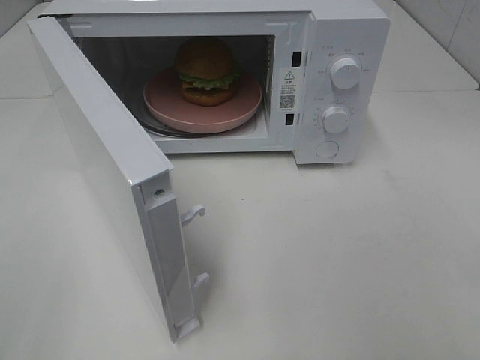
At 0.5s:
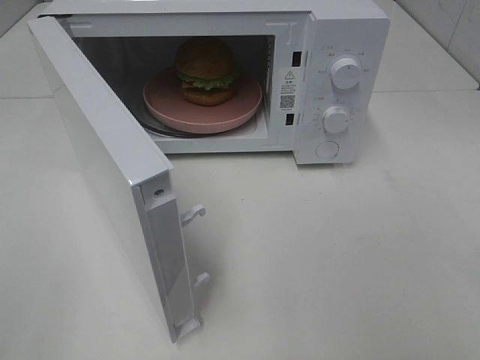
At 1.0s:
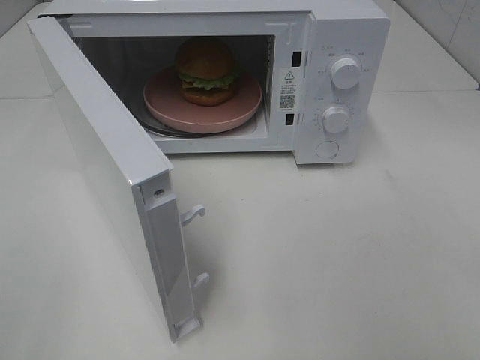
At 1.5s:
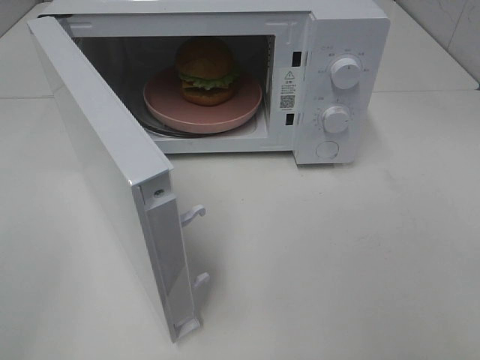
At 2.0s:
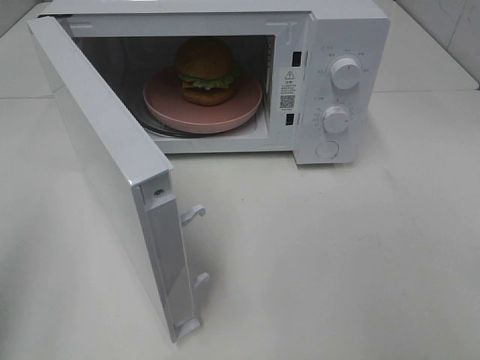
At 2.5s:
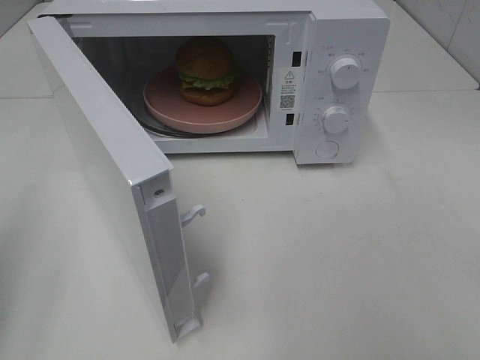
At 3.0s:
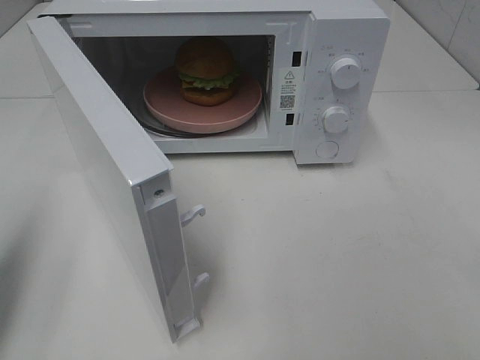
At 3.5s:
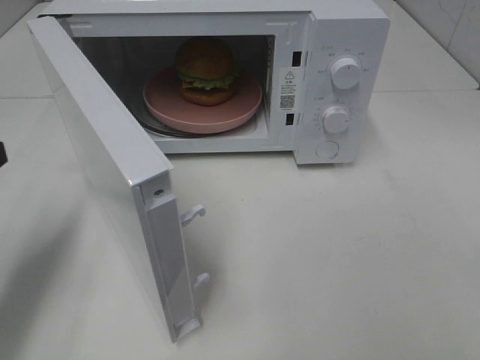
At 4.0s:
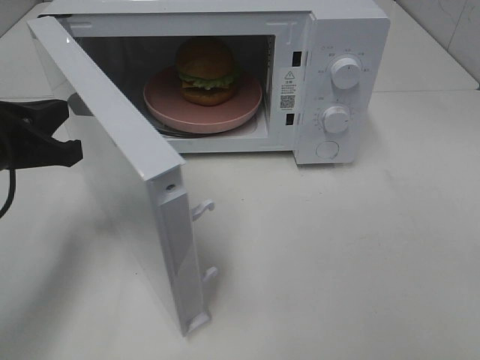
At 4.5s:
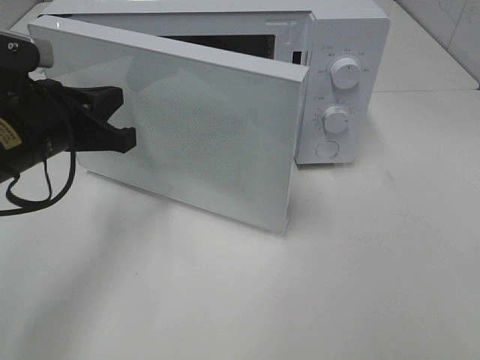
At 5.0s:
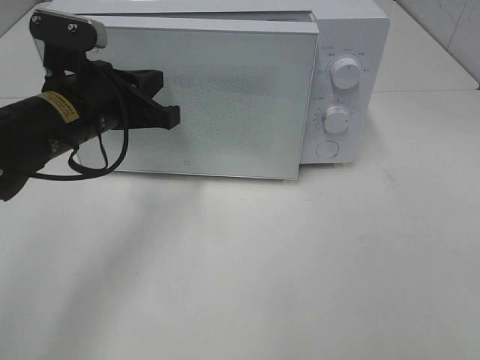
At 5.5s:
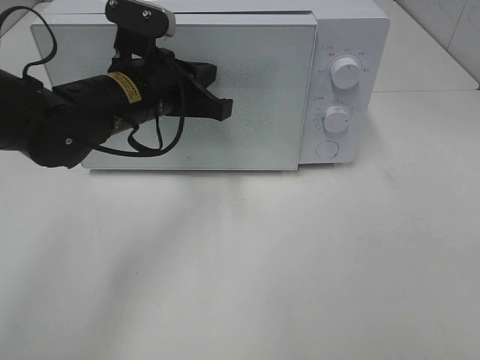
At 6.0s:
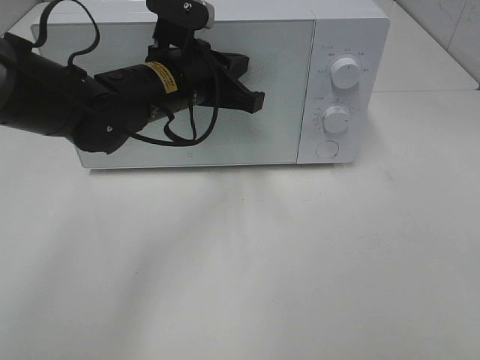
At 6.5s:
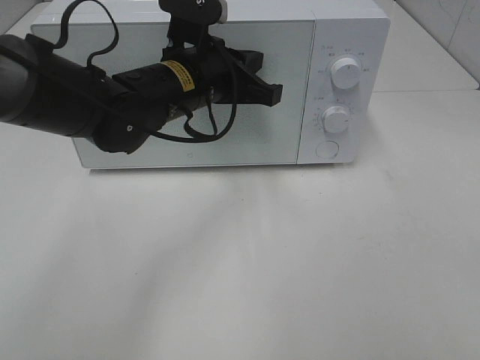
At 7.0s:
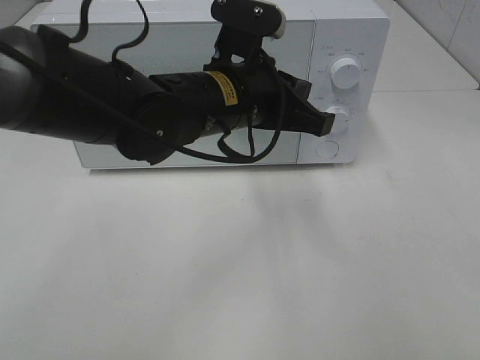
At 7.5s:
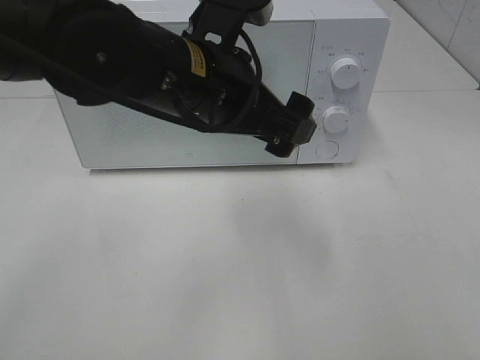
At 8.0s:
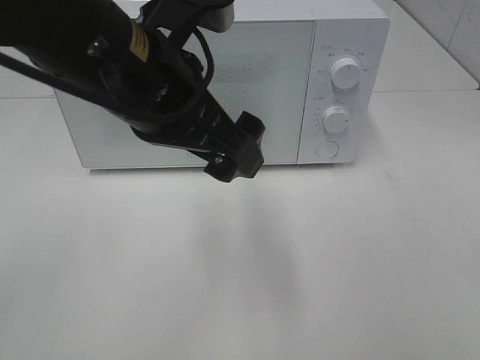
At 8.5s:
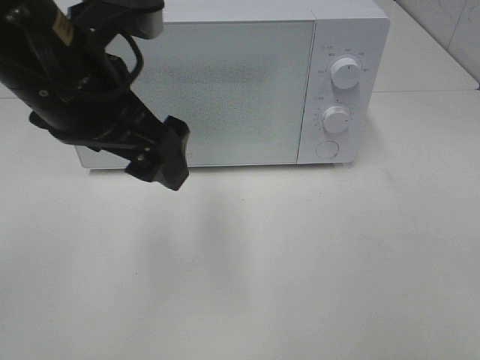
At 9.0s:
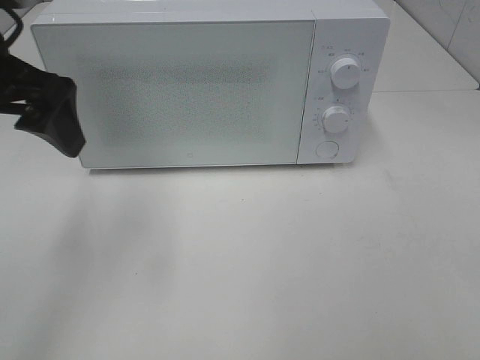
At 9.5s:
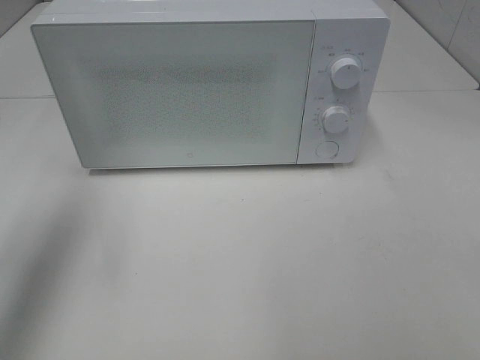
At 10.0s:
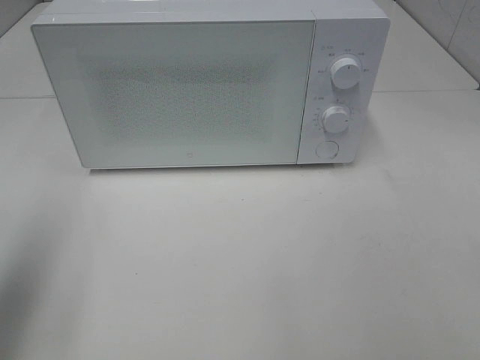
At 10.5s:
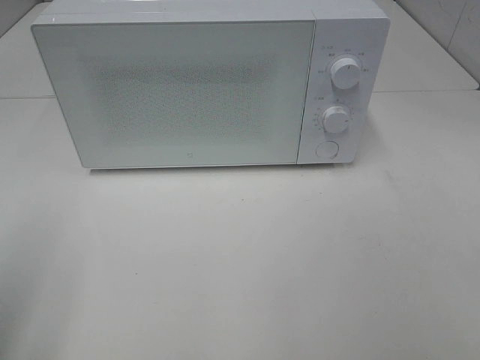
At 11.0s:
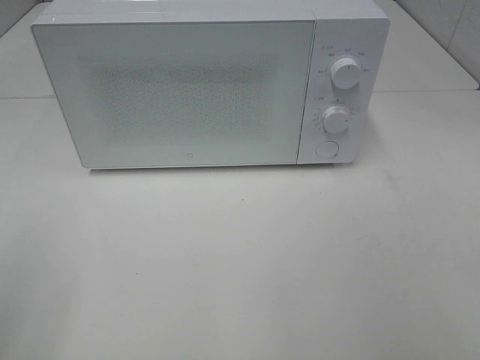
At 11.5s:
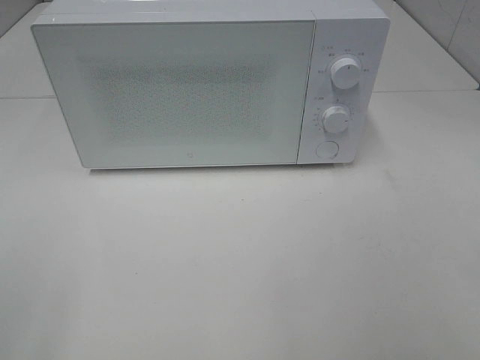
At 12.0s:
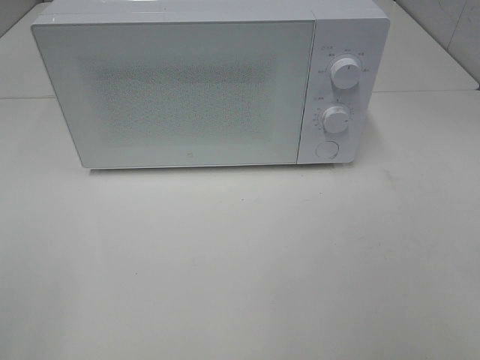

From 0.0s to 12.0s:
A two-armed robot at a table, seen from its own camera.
Task of the whole recording: Heat the burger.
Step, from 0.0s to 6.5s: Left hand: close the microwave door.
From 2.0s to 4.0s: The left gripper moves forward, downward and to the right, some 25 cm.
From 4.0s to 6.0s: The left gripper heads to the right and forward, covering roughly 20 cm.
From 6.0s to 8.0s: The left gripper travels backward and upward by roughly 15 cm, and opens its fingers.
From 8.0s to 10.0s: The left gripper heads to the left, covering some 25 cm.
From 10.0s to 12.0s: The left gripper goes about 15 cm backward.

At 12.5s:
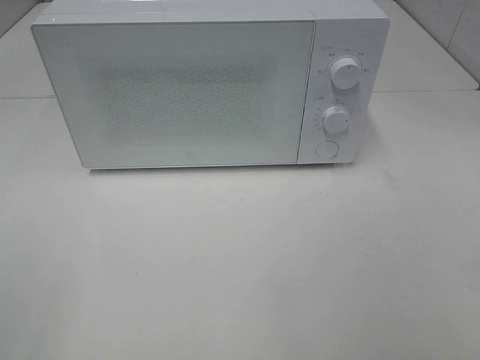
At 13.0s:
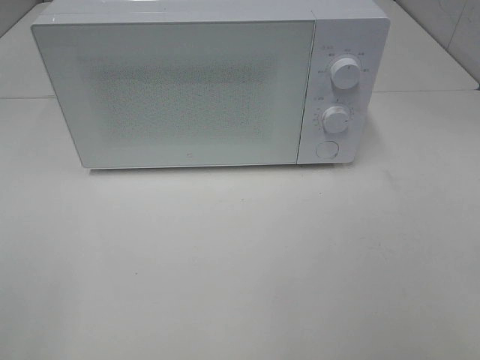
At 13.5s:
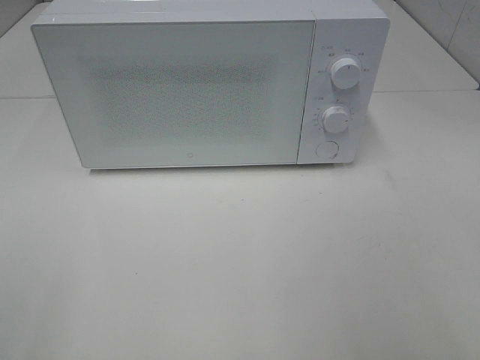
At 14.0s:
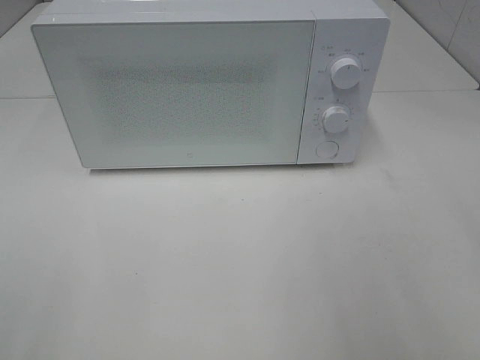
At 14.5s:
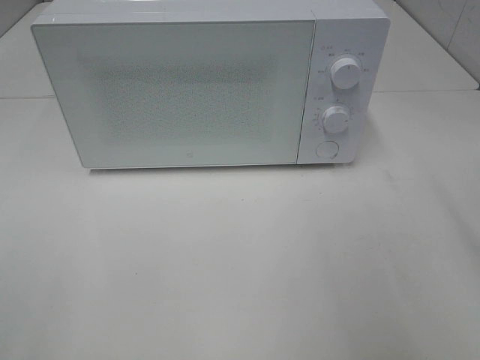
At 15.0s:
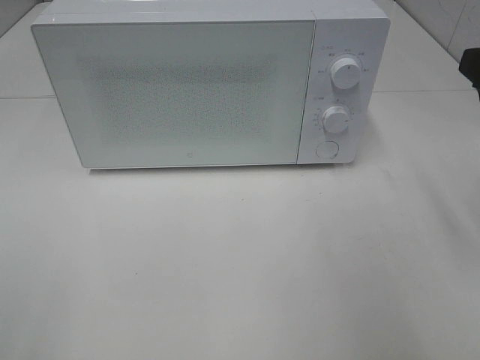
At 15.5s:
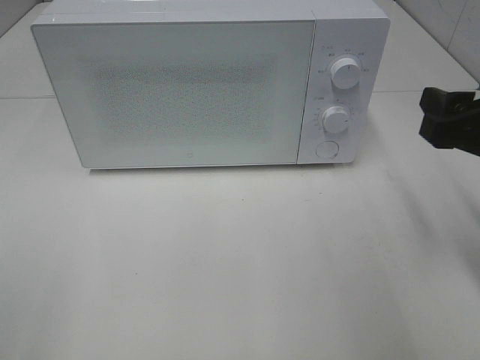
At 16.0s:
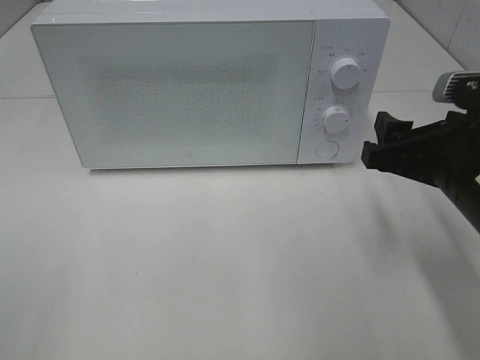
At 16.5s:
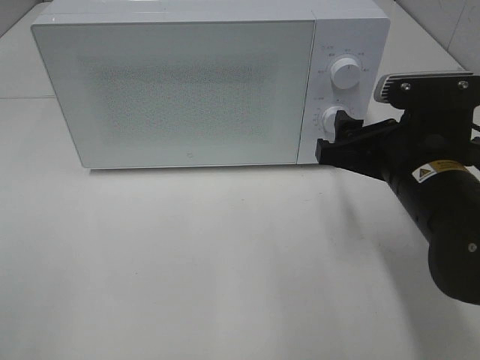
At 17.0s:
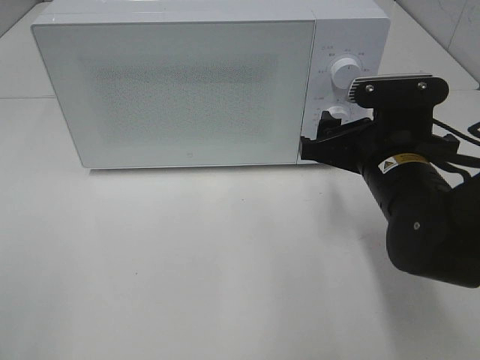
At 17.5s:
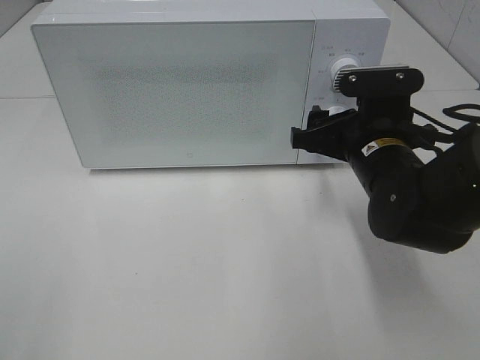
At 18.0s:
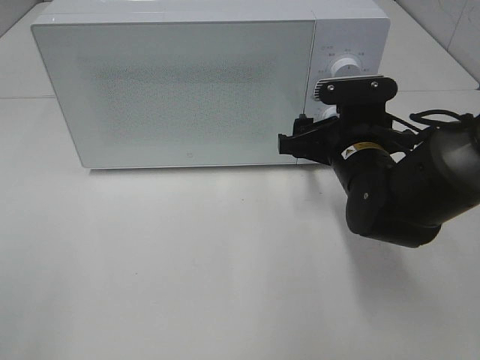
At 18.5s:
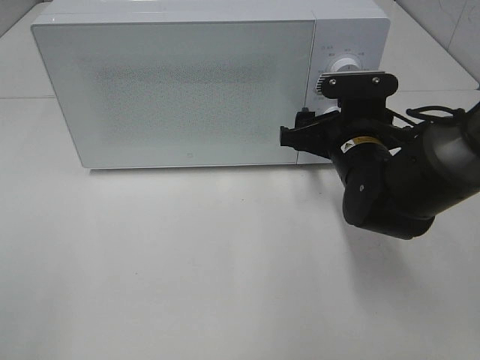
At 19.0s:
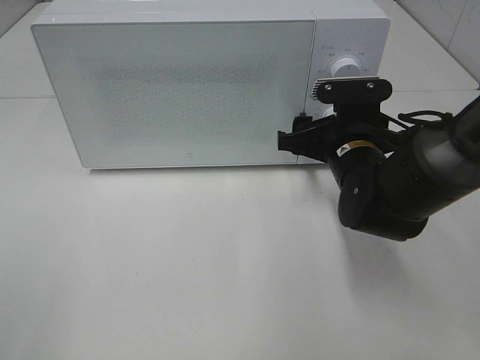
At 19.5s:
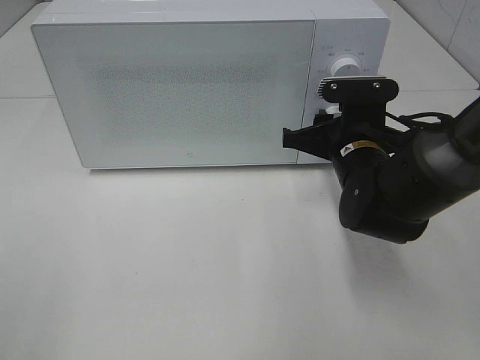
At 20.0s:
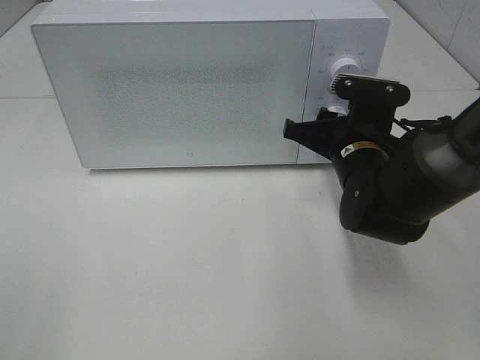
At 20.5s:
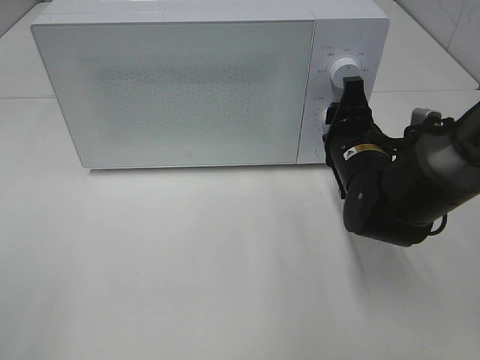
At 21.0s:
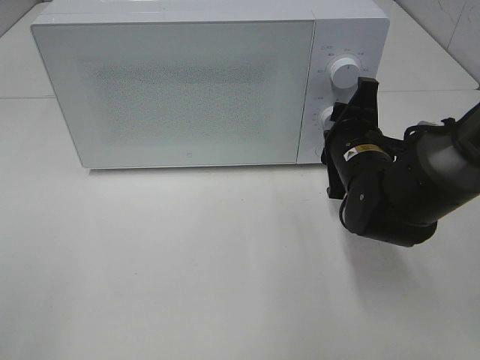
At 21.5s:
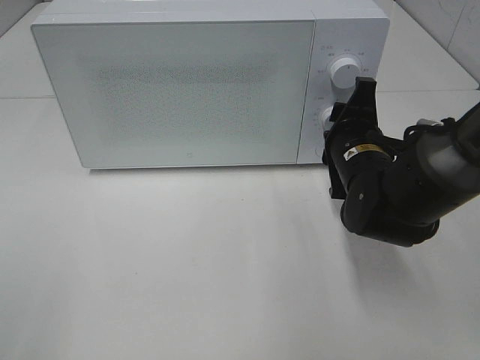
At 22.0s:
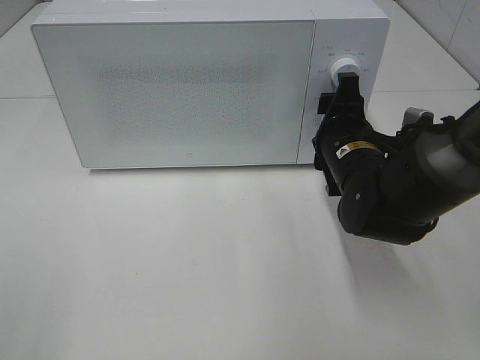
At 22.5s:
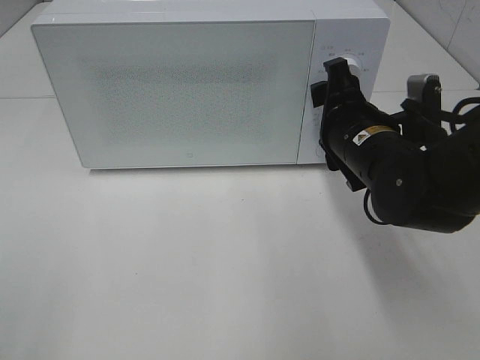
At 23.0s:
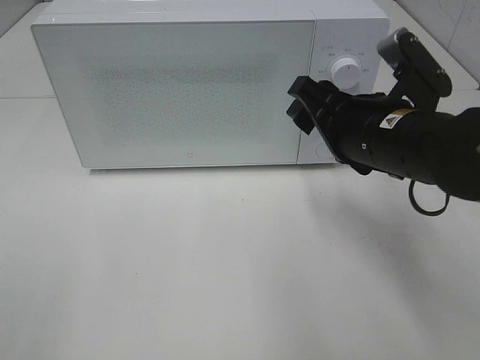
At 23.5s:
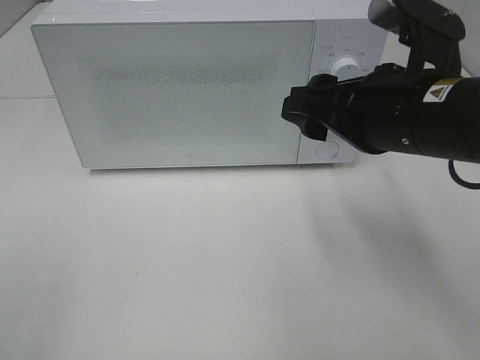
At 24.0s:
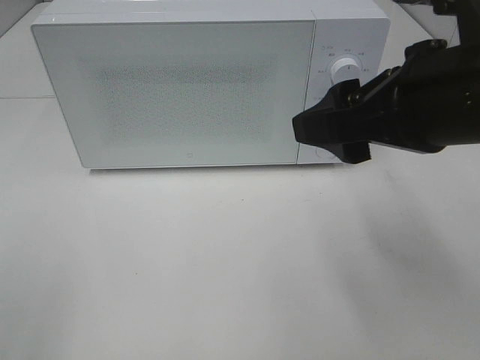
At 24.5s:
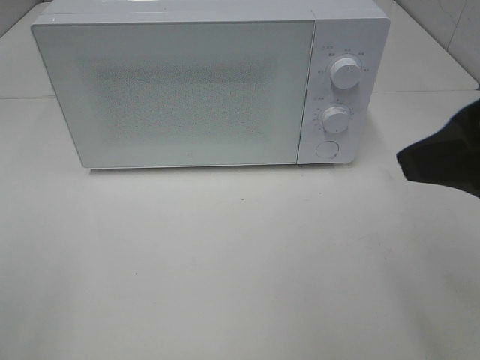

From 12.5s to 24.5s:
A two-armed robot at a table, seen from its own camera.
Task of the whole recording: Heat the burger.
Step, from 12.5s to 21.5s: Right hand: twist timer button.
From 14.5s to 16.5s: The right gripper heads downward, to the left and forward, covering roughly 20 cm.
From 16.5s to 18.5s: The right gripper moves forward, approximately 10 cm.
From 18.5s to 20.5s: The right gripper closes.
From 22.5s to 24.5s: The right gripper is displaced upward and backward by approximately 25 cm.

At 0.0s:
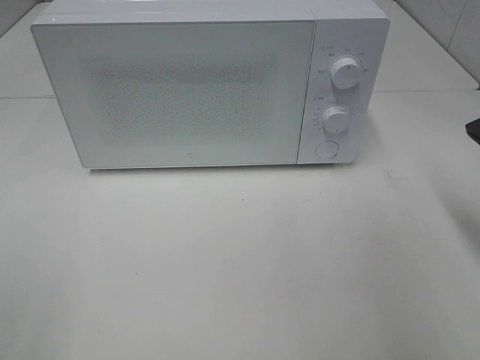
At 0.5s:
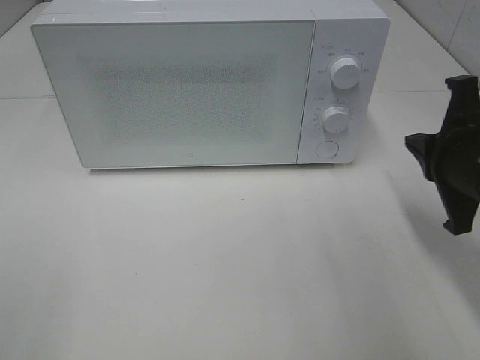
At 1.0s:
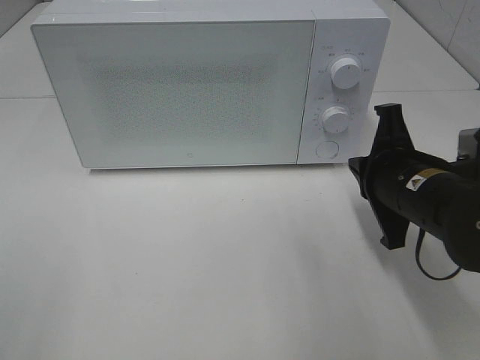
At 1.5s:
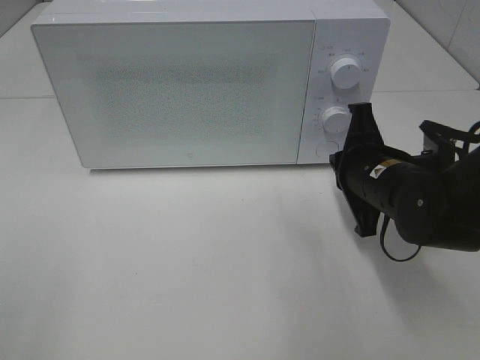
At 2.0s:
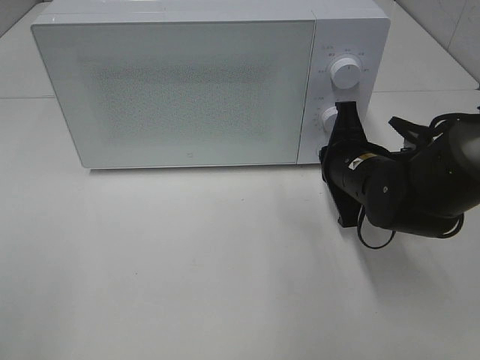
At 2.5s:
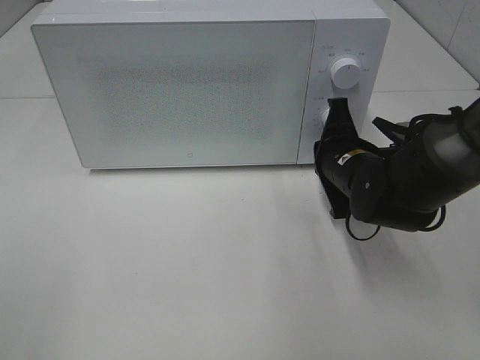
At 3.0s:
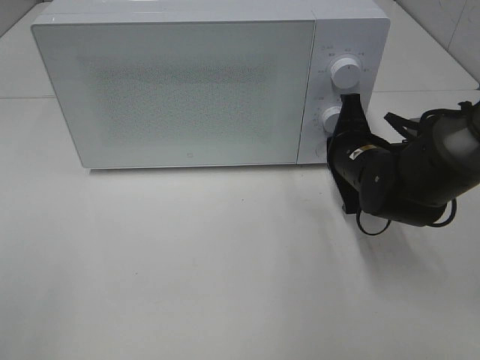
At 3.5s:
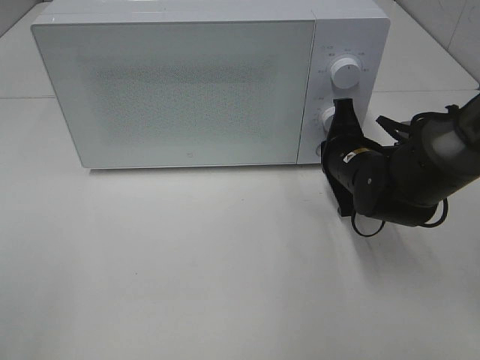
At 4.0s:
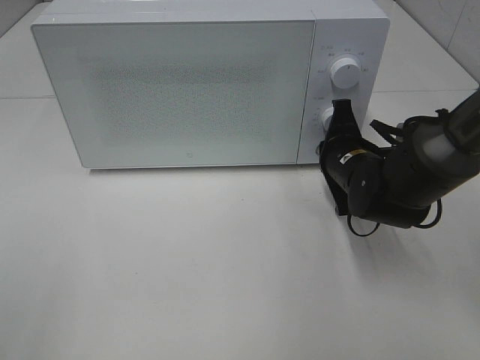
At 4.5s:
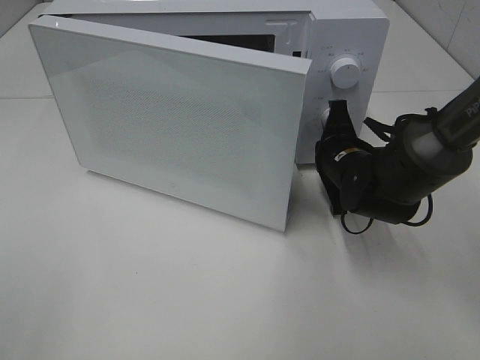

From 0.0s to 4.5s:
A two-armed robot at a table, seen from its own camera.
Task of the whole recording: Heat the burger.
From 0.0s to 2.0s: The right gripper moves to the left, downward and forward, some 20 cm.
From 2.0s to 4.5s: The grippers move only a little.
